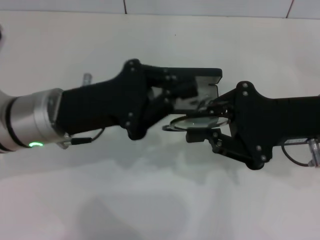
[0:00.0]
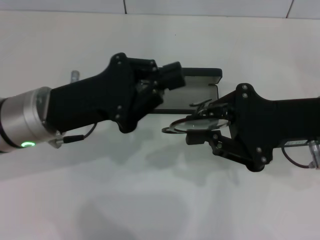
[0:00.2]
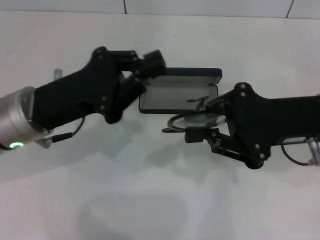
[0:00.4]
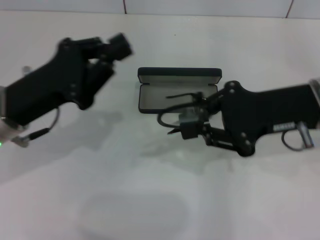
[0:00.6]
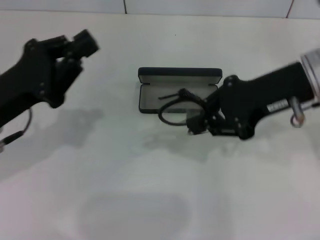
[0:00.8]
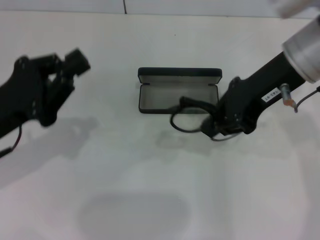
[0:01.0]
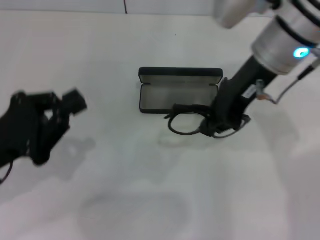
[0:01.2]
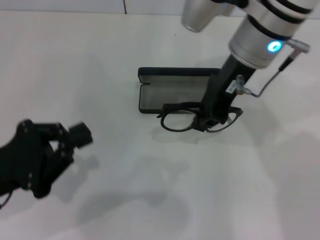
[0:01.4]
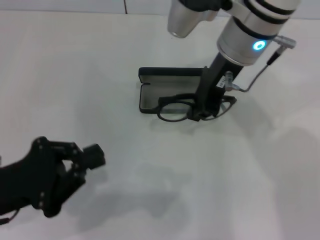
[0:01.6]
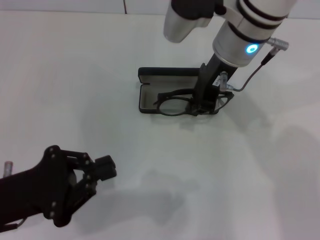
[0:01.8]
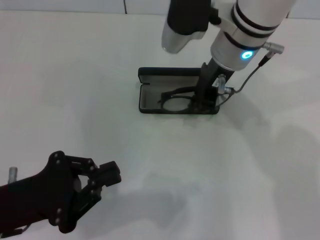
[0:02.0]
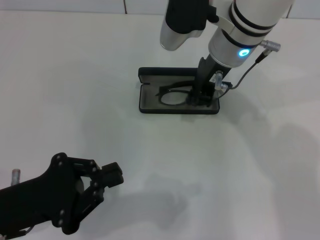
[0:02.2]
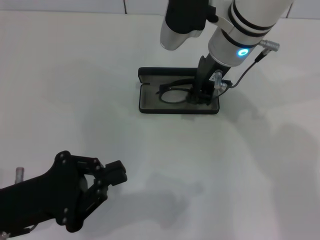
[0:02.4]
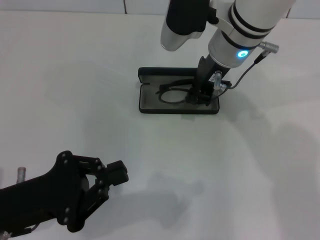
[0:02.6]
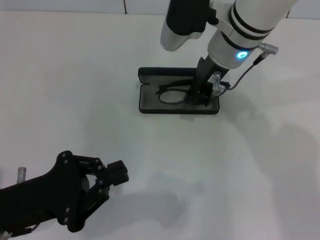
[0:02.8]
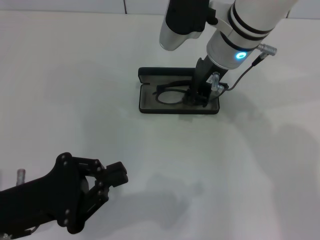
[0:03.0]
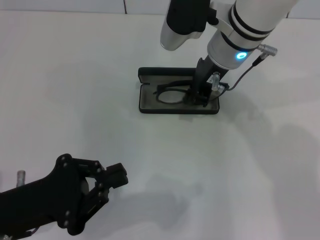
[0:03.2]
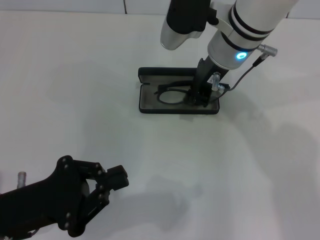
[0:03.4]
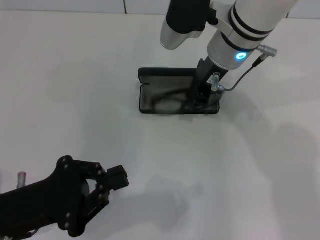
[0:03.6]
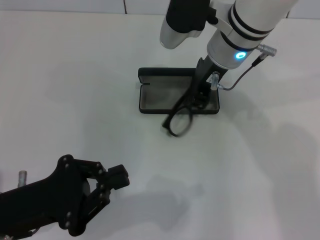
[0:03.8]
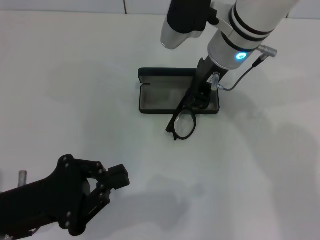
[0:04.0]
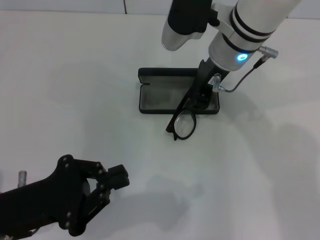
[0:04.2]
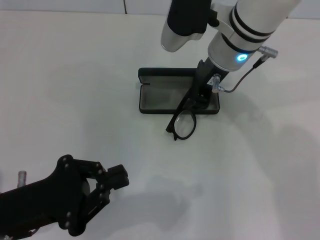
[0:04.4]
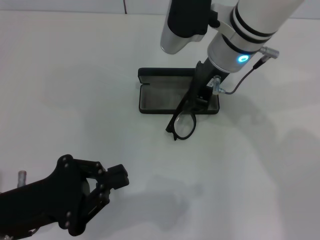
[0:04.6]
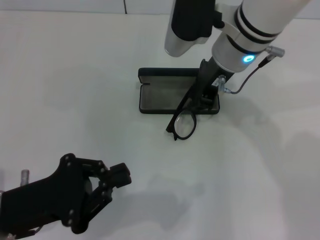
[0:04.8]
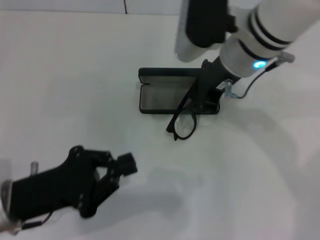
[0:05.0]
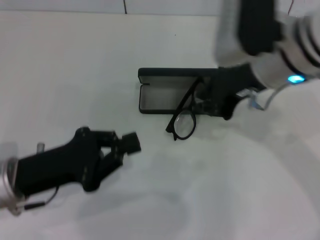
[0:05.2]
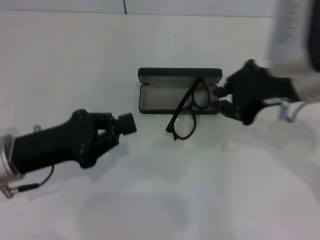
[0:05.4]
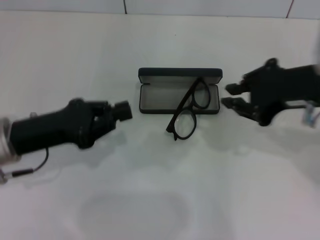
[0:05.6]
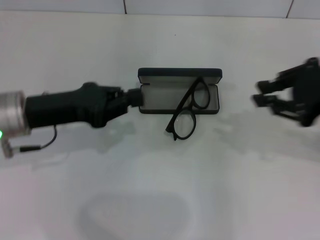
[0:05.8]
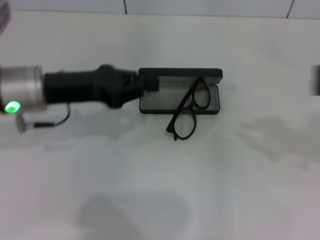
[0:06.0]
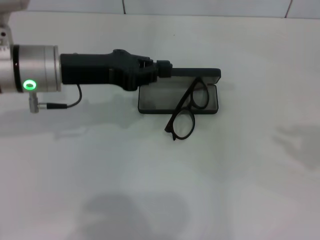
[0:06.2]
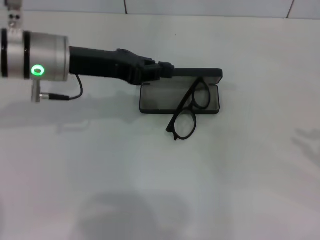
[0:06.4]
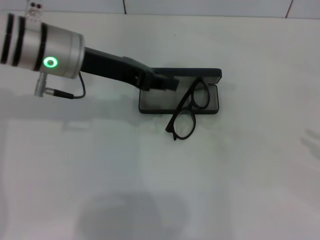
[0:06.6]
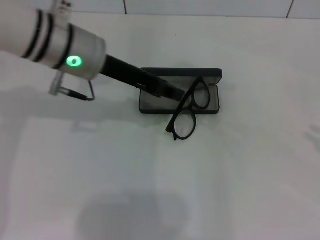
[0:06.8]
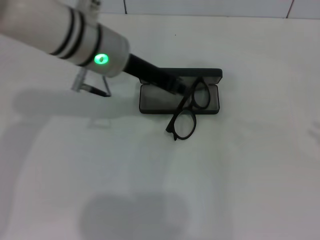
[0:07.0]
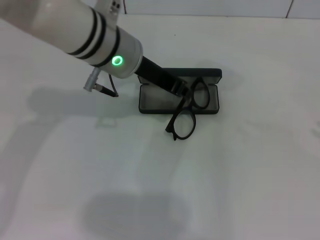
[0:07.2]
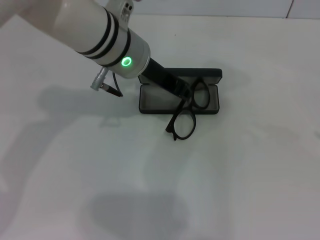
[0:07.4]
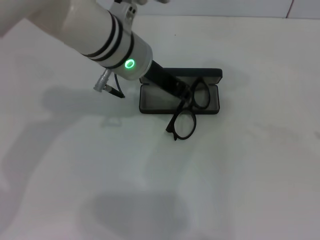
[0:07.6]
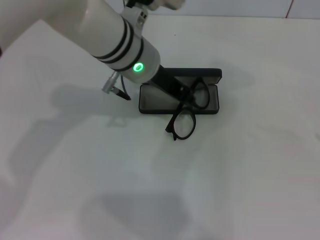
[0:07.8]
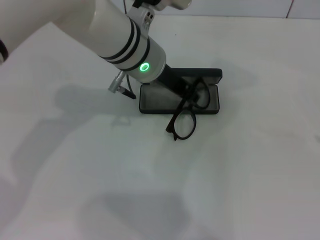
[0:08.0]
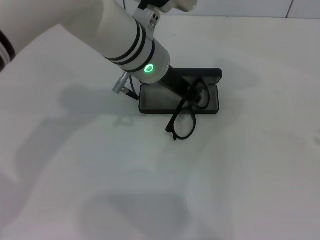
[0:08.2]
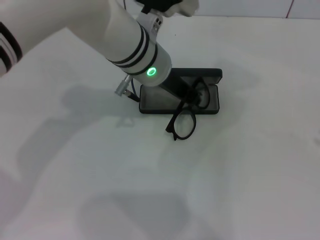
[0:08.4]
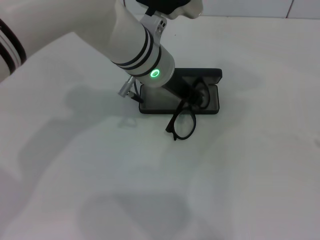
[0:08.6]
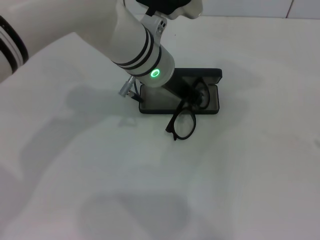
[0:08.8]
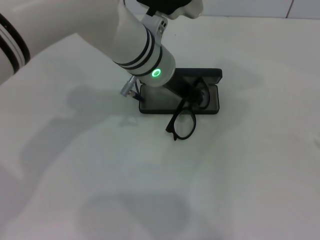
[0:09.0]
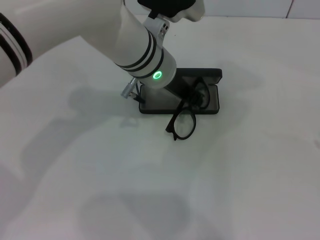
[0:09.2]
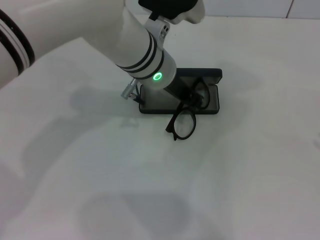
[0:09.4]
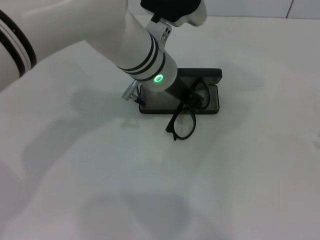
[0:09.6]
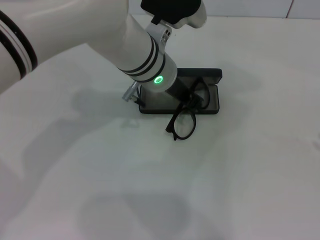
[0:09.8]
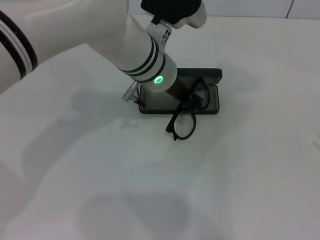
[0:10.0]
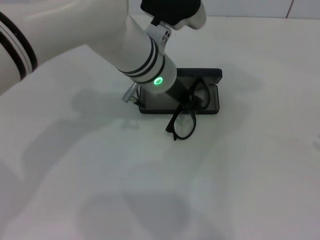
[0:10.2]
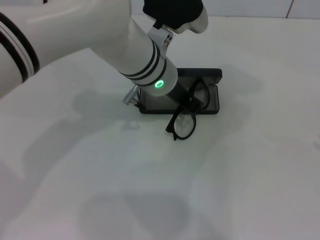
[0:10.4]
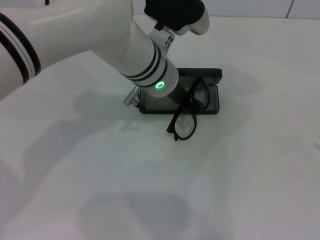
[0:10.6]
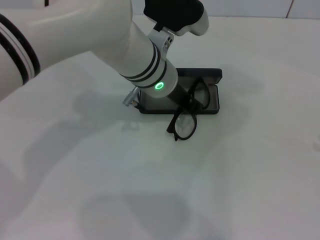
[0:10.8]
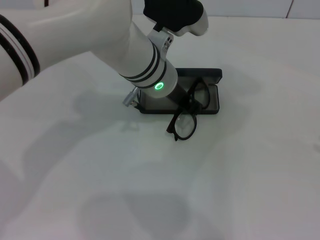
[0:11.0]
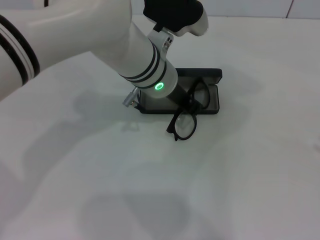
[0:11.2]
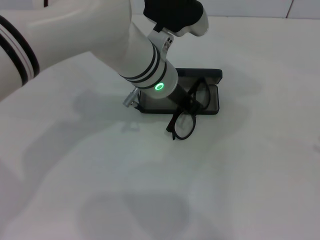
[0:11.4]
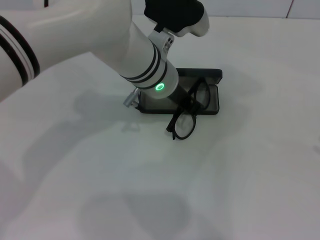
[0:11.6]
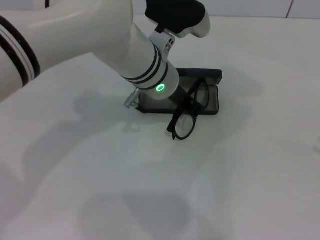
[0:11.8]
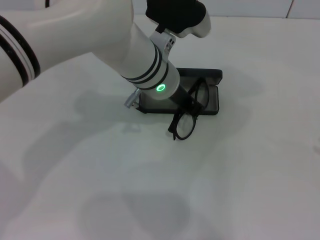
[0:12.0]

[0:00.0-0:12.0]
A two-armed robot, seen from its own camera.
0:00.0 to 0:01.6: The right gripper travels to the left, forward and upward by approximately 20 cm. Meanwhile the left gripper heads to the left and backward, covering approximately 15 cm.
0:01.6 to 0:03.0: There are only small adjustments of the grippers.
0:03.0 to 0:04.4: The two grippers keep their place.
0:04.4 to 0:06.0: The left gripper heads forward and upward, covering roughly 15 cm. Meanwhile the right gripper shifts roughly 30 cm to the right and backward.
0:06.0 to 0:07.6: The left gripper heads to the right, covering approximately 15 cm, while the right gripper goes about 15 cm downward and to the right.
0:07.6 to 0:10.4: The grippers move only a little.
0:10.4 to 0:12.0: Both grippers stay put.

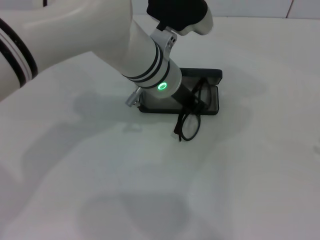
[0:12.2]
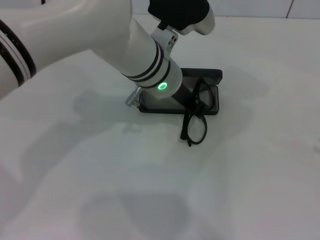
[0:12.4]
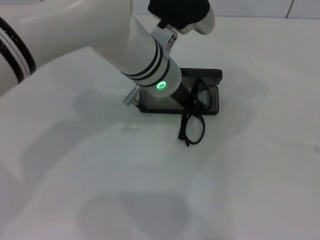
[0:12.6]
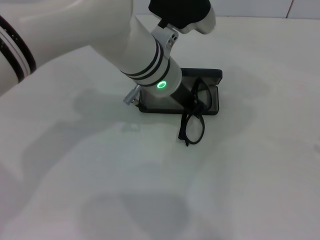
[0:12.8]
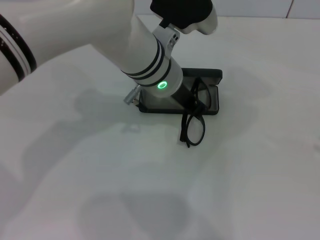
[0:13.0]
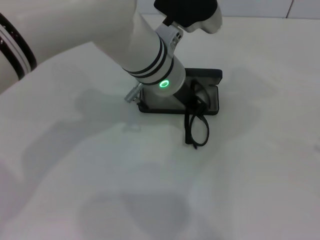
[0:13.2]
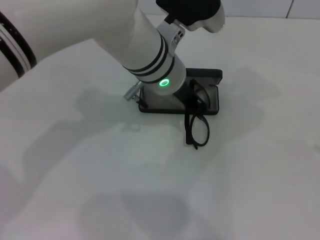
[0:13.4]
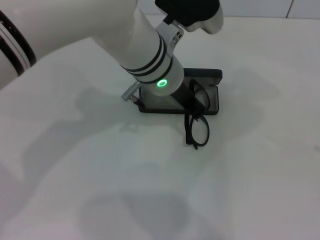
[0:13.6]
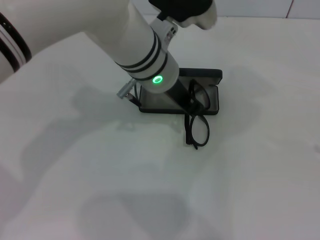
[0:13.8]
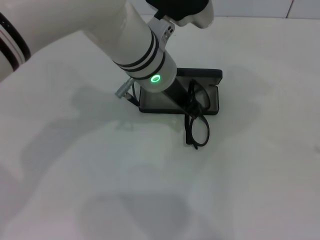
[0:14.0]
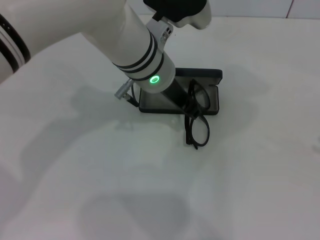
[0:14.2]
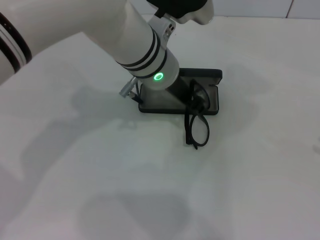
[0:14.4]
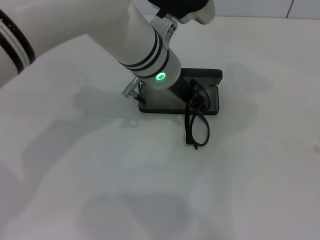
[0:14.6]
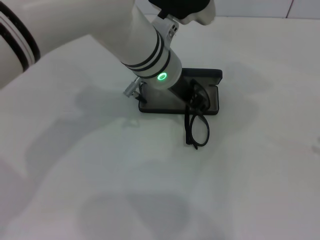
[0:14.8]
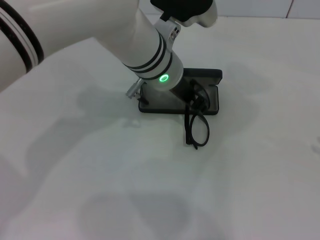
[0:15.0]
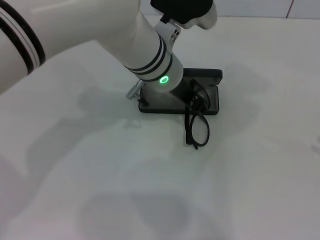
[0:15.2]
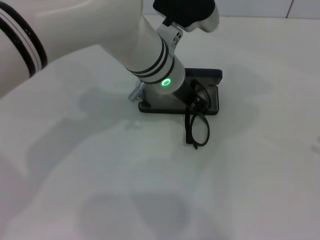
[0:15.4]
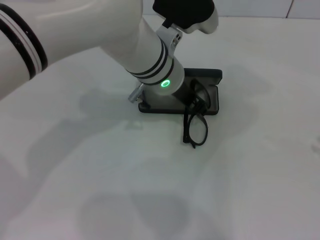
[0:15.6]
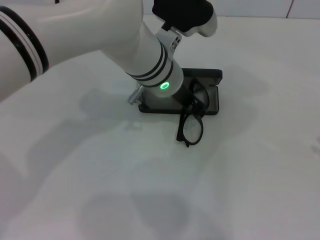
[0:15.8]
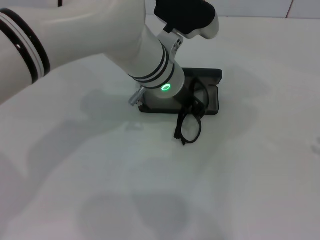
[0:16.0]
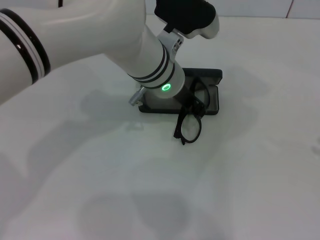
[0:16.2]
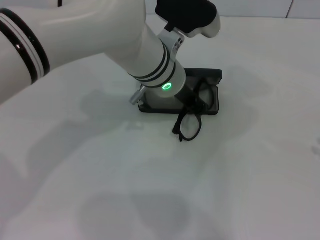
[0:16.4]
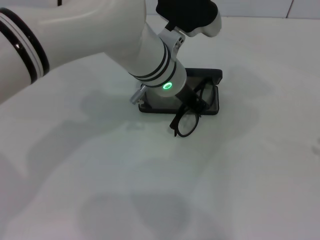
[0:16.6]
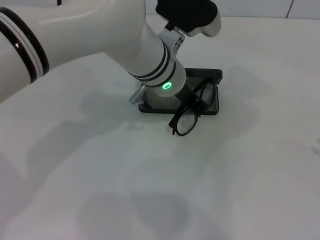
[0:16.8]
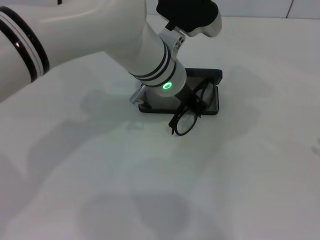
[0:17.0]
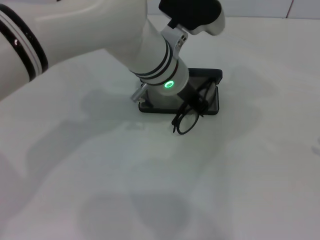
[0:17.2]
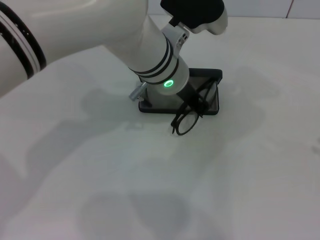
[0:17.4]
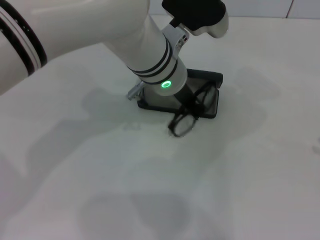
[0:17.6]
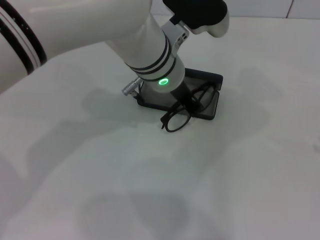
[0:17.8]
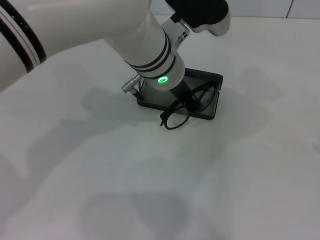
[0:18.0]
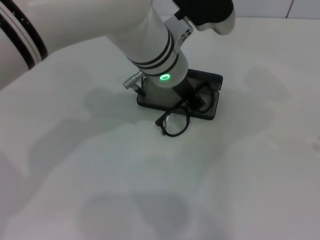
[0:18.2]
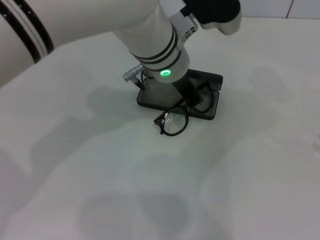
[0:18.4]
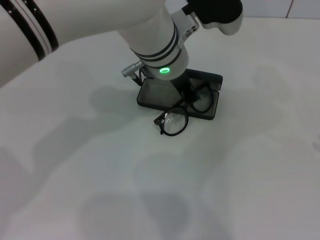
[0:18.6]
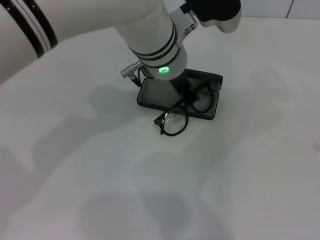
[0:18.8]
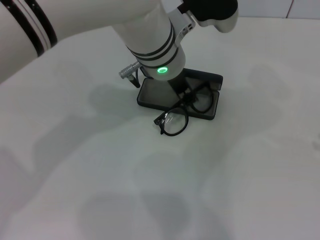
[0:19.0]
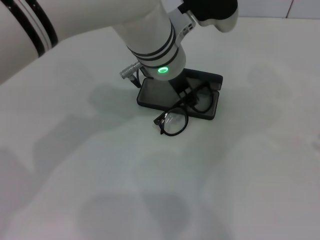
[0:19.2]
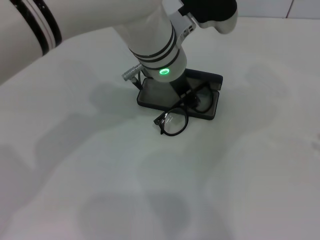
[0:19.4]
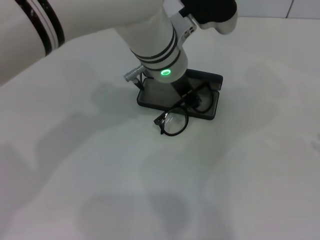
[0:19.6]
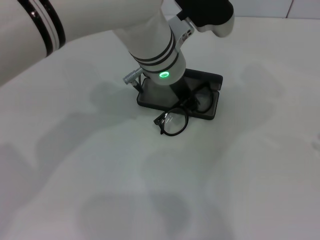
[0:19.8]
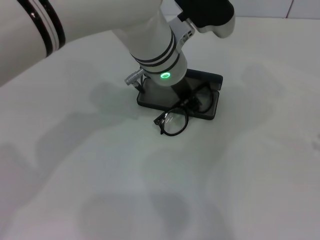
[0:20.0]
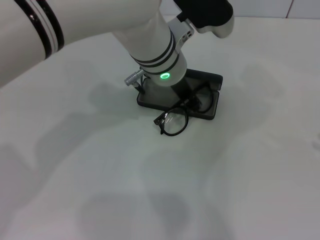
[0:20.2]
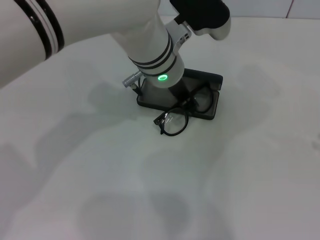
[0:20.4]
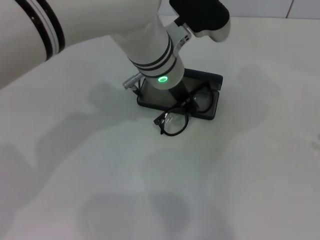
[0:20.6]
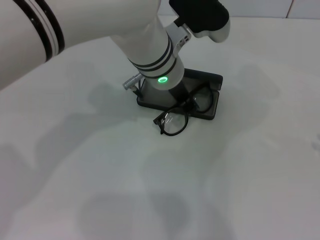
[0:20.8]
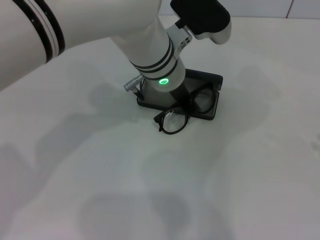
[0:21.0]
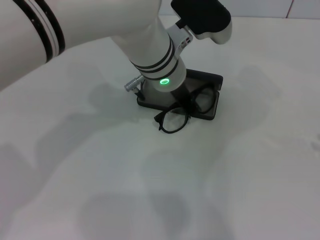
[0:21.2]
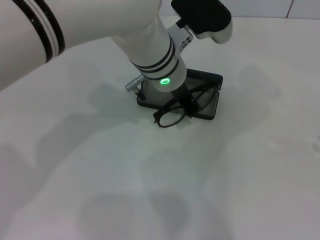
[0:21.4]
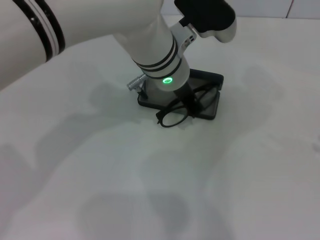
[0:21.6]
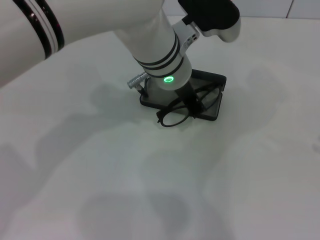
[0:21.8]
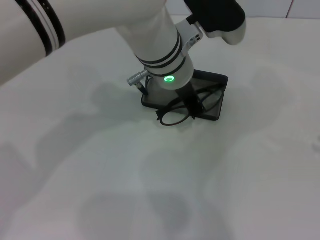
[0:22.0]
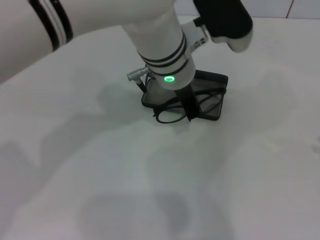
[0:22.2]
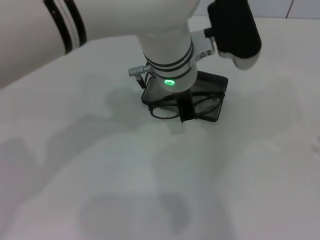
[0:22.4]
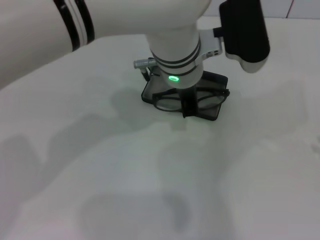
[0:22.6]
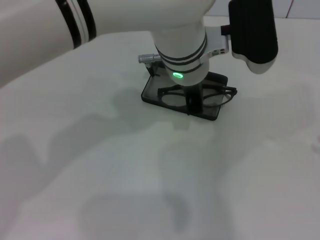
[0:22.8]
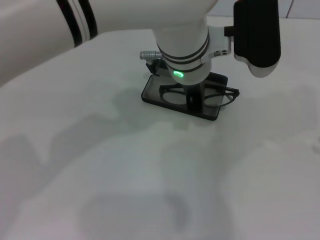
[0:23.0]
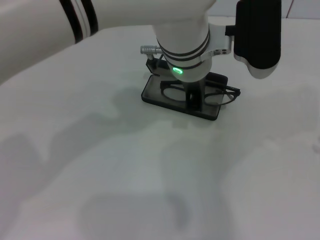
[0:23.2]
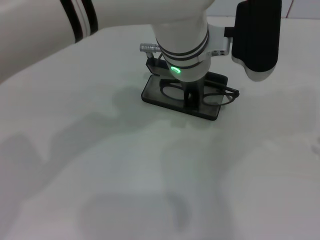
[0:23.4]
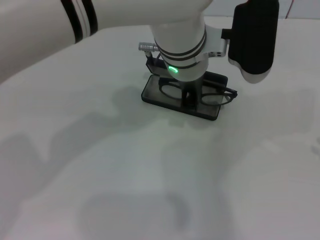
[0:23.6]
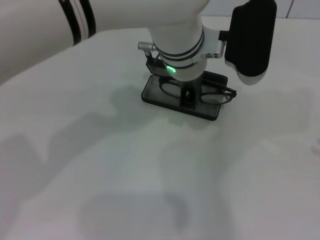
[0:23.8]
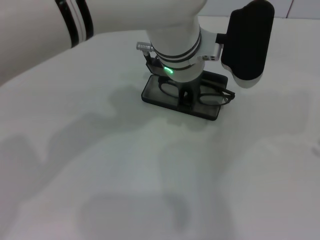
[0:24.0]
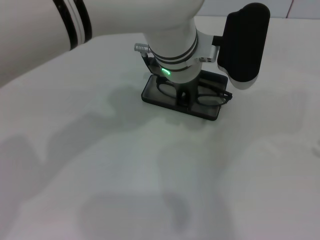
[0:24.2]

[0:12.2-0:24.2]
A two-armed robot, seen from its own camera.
0:12.2 to 0:13.8: The grippers stay close to where they were, moving slightly.
0:13.8 to 0:15.2: The left gripper opens.
0:15.2 to 0:16.6: Both grippers stay about where they are.
0:16.6 to 0:18.2: The grippers move only a little.
0:18.2 to 0:19.8: The left gripper opens its fingers.
0:19.8 to 0:21.2: The two grippers keep their place.
0:22.6 to 0:24.2: The grippers make only small movements.
